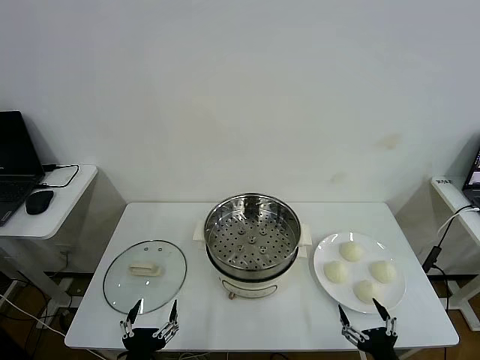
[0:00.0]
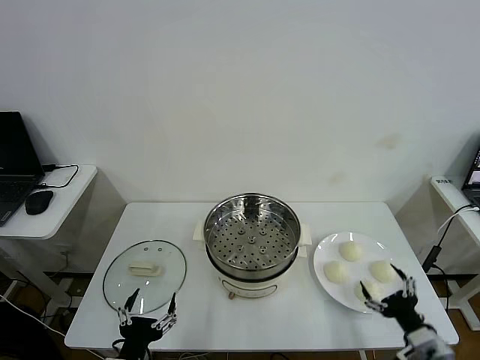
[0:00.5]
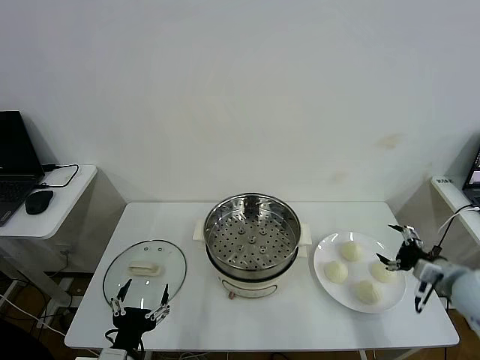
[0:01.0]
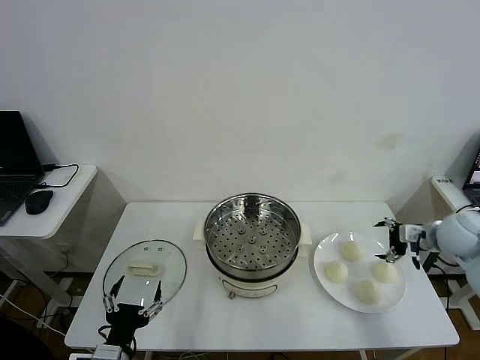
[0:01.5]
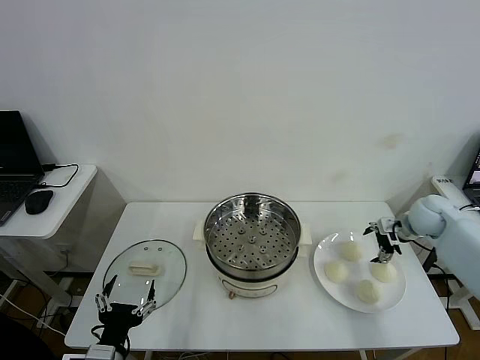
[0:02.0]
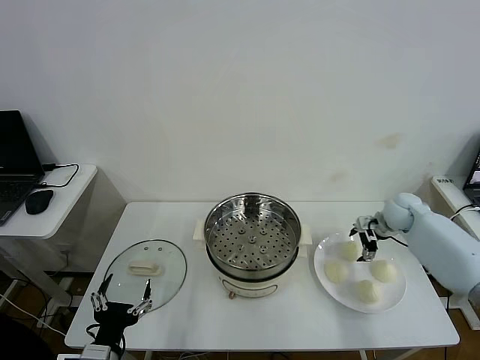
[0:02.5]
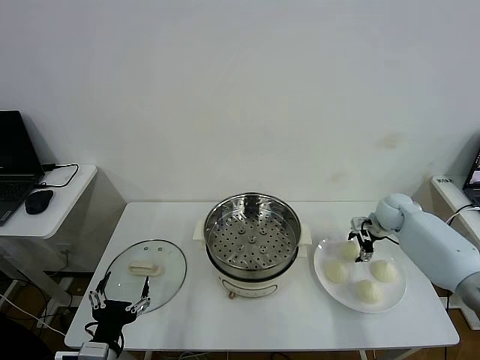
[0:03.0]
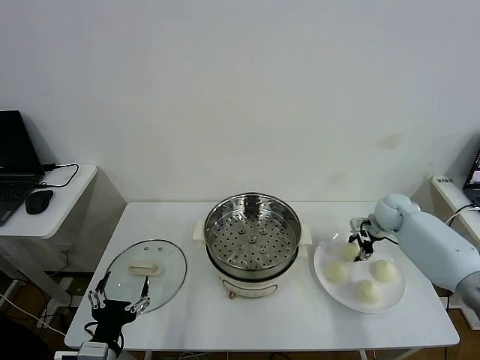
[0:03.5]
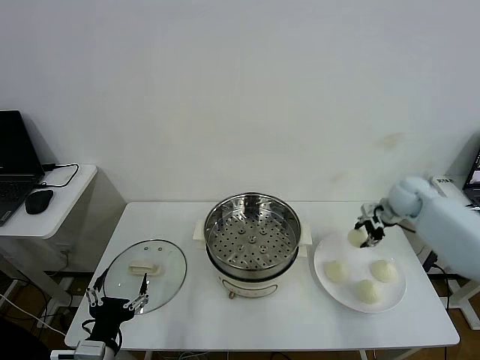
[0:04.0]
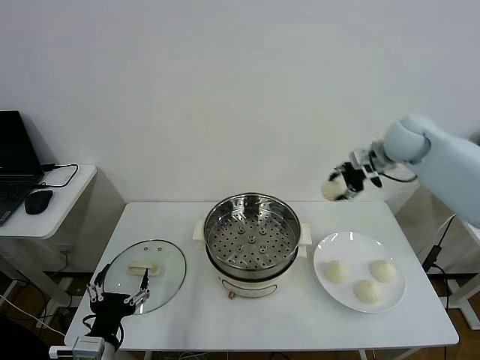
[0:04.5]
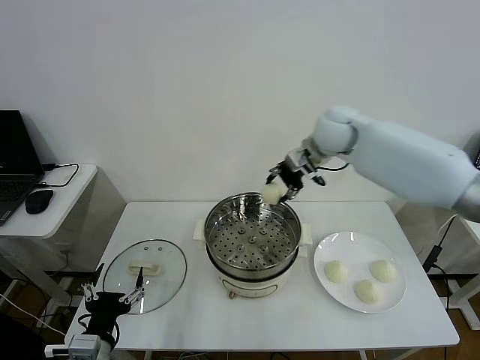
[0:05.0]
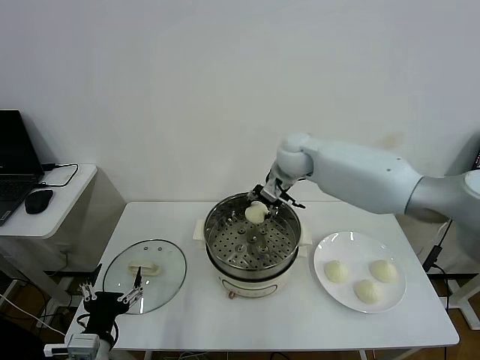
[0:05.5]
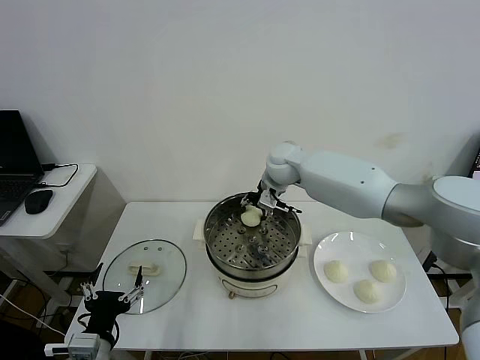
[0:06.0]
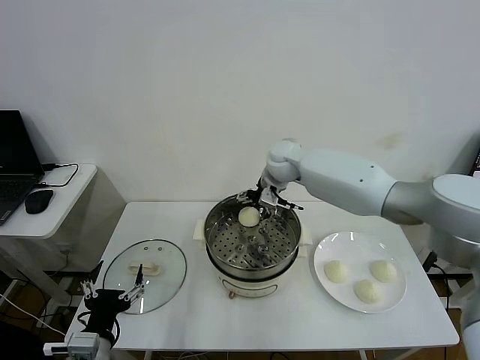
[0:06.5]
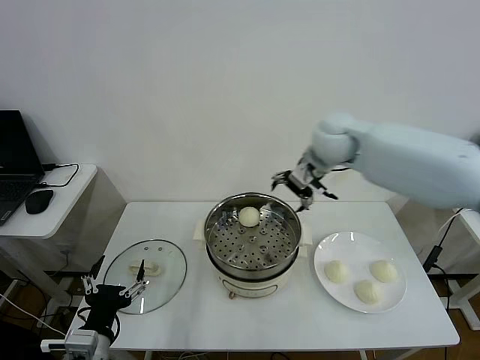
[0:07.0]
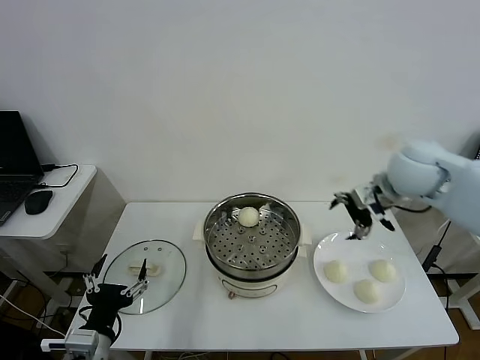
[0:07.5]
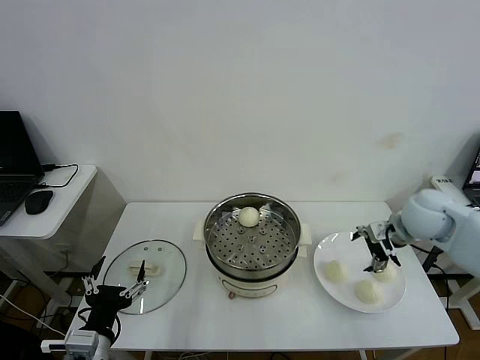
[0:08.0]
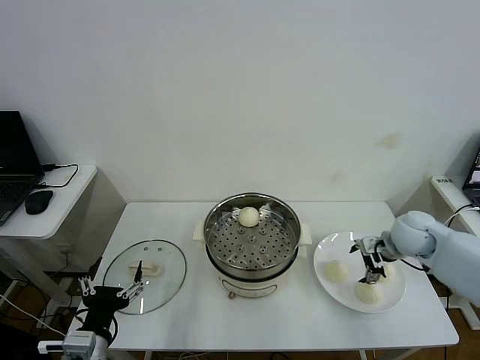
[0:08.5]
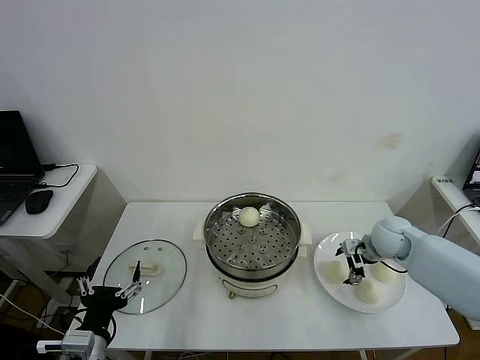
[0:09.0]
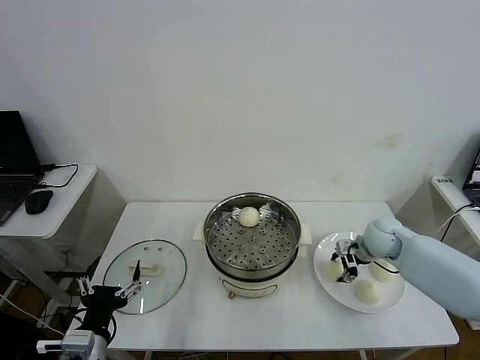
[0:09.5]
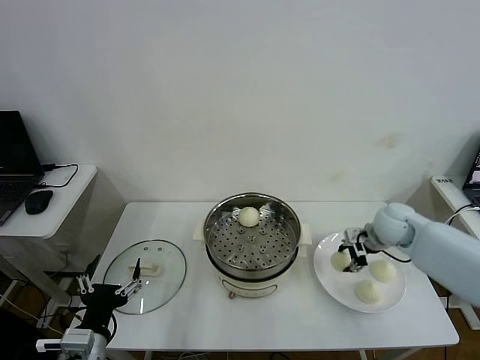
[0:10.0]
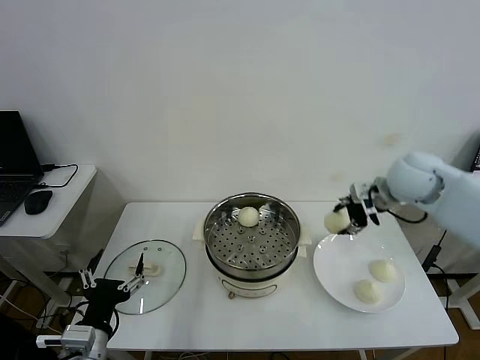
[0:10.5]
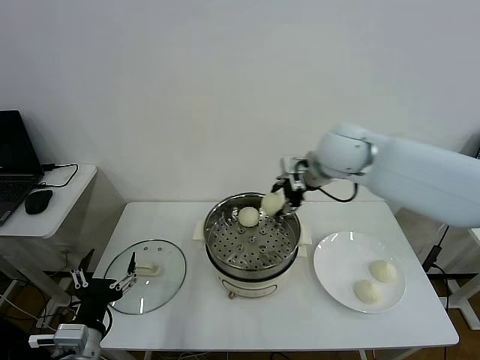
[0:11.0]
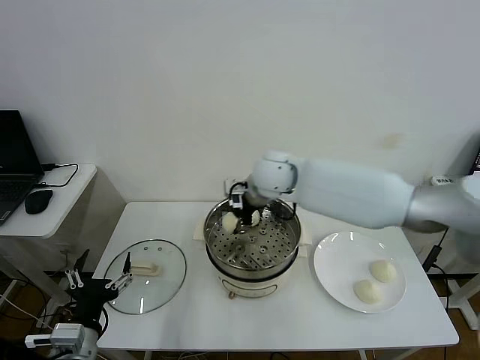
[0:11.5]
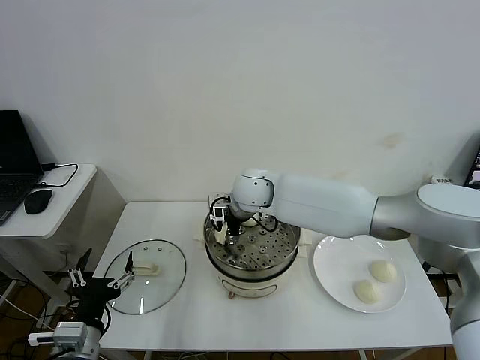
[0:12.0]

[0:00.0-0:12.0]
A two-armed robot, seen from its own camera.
Step, 0.0 to 3.0 s: Grasp the baozi in the plate with right gripper.
Step, 3.5 to 6.5 s: Place the baozi on the steamer with right gripper.
Step, 7.0 to 9.5 s: Grasp the baozi in the plate with right gripper.
2.0 to 4.0 s: The right gripper shifts about 5 cm upward, and closes up.
4.0 to 6.0 s: The right gripper heads to the left, covering about 30 cm.
6.0 to 8.0 s: The right gripper travels to the right and backward by some 30 cm, and opens.
8.0 to 10.0 s: The right gripper closes up.
10.0 to 12.0 s: The right gripper is displaced to the left by roughly 35 cm, and opens up.

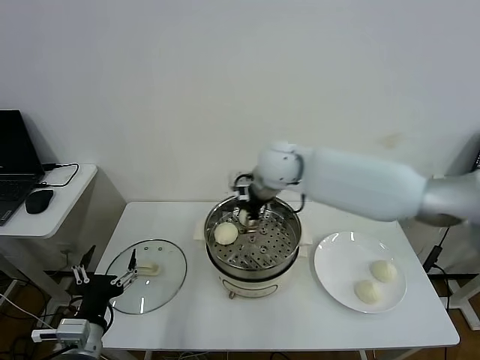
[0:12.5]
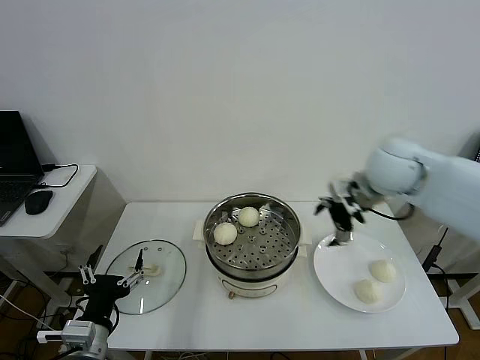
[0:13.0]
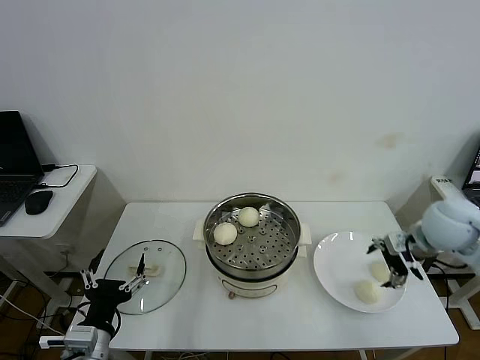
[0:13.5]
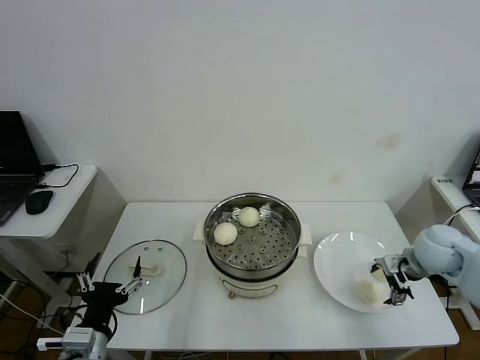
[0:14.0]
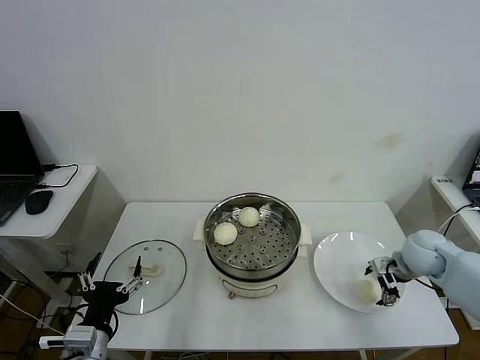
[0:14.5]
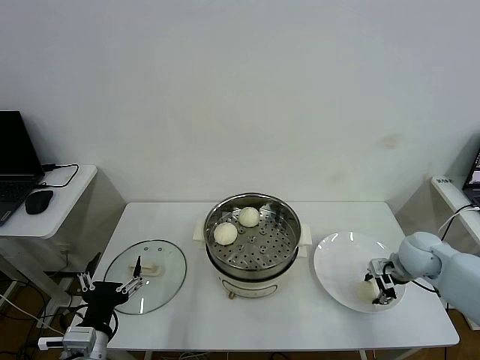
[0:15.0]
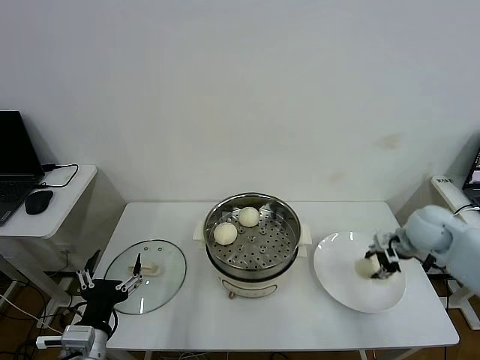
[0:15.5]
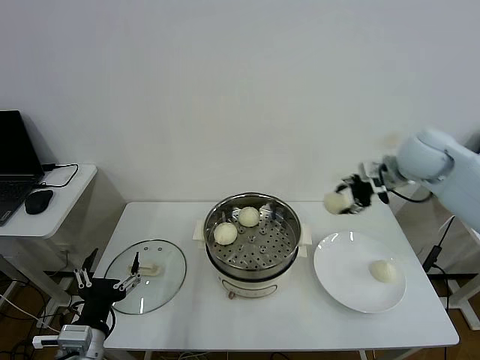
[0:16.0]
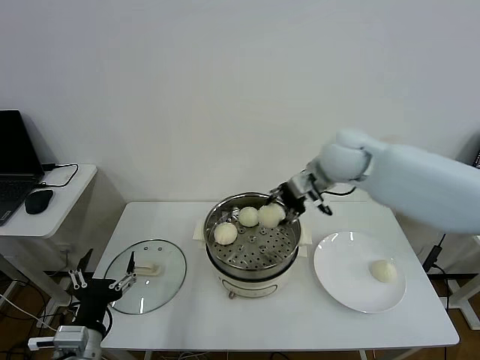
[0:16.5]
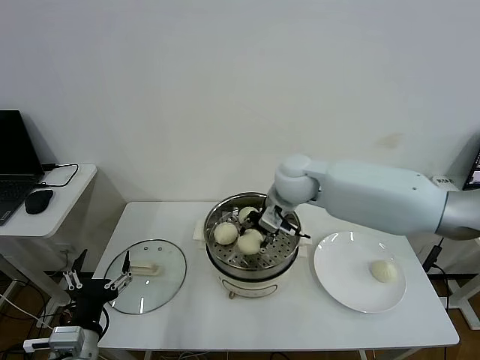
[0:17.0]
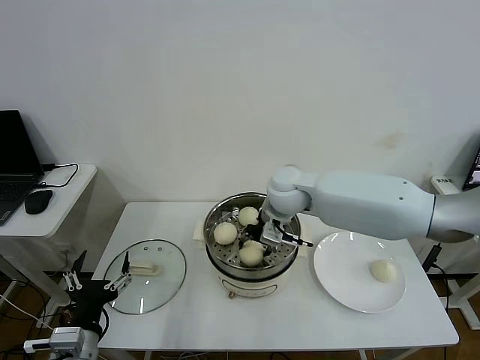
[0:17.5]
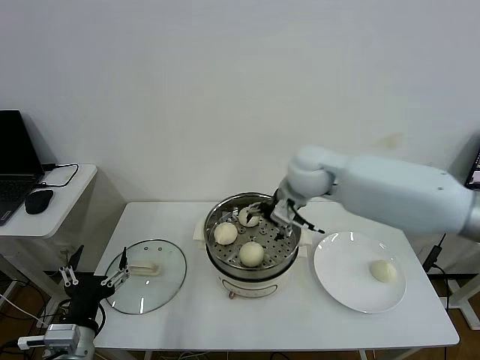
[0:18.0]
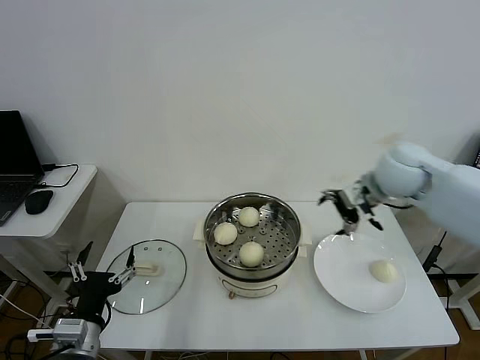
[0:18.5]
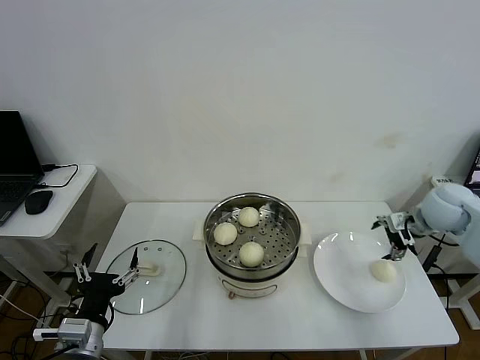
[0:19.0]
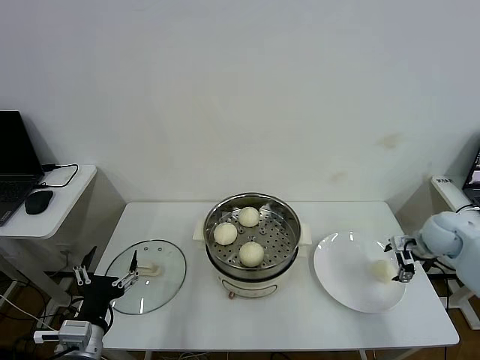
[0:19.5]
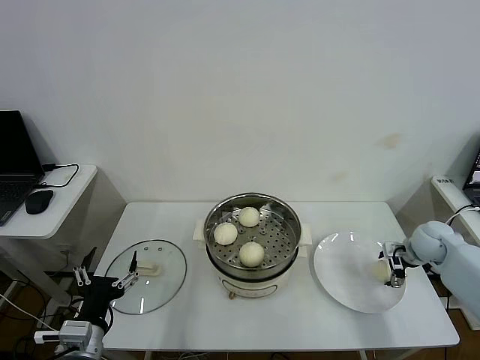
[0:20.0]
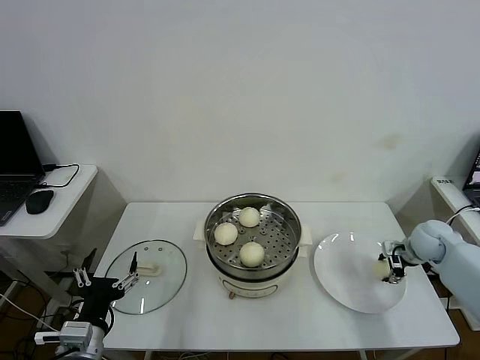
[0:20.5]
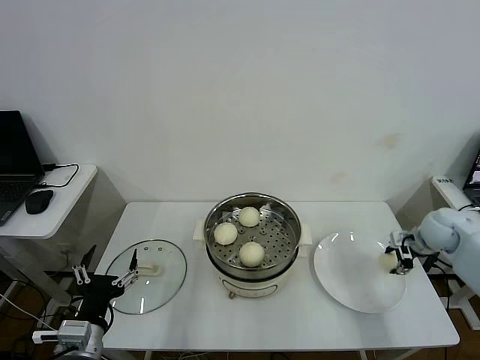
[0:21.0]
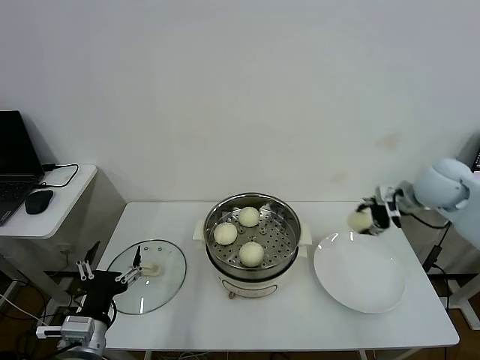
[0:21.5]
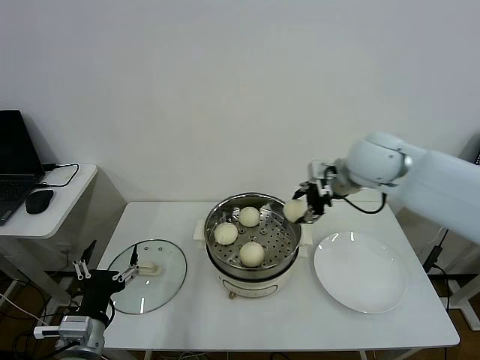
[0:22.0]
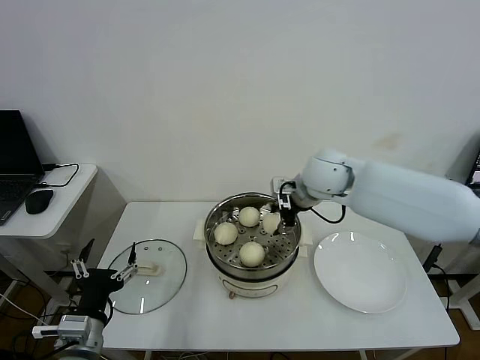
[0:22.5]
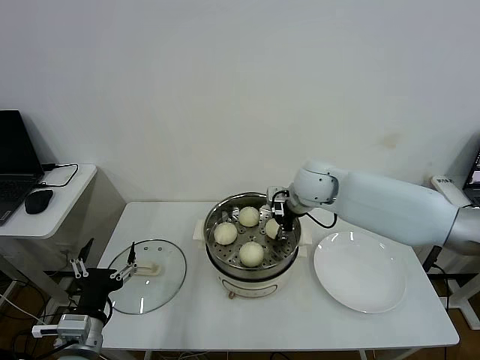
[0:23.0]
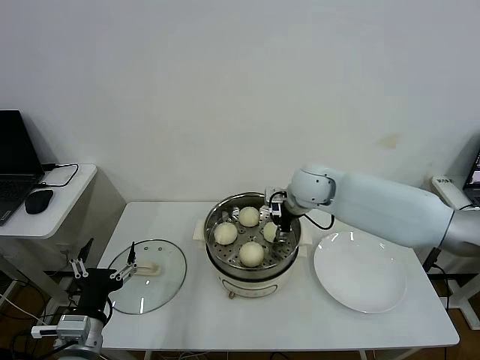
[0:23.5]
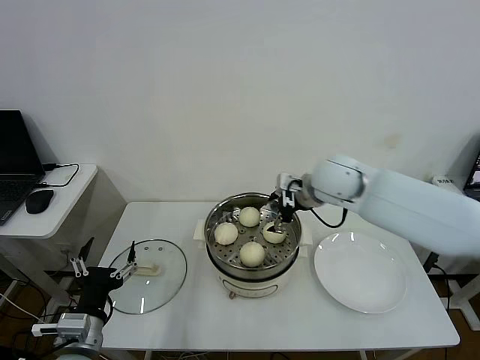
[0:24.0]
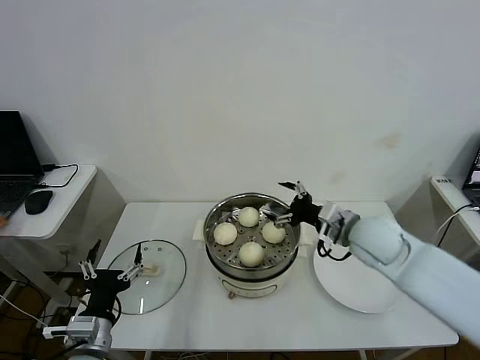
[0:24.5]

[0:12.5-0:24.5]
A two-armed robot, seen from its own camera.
Step, 12.5 to 14.5 s: Grasp the baozi in the plate with right gripper.
Step, 15.0 to 17.5 s: Place the baozi on the steamer with right gripper.
Step, 18.0 to 20.5 s: Grasp the baozi in the plate with right gripper.
Step, 21.0 to 23.5 s: Place the baozi on the steamer with right gripper.
12.5 to 14.5 s: The right gripper shifts approximately 35 cm to the right and downward.
14.5 to 16.5 s: The right gripper heads to the left, upward and forward, covering some 30 cm, and closes.
16.5 to 18.5 s: The right gripper is displaced to the right by about 15 cm, and opens up.
18.5 to 20.5 s: The right gripper moves downward and to the right, some 25 cm, and closes.
20.5 to 22.5 s: The right gripper is displaced to the left and upward by about 35 cm.
22.5 to 24.5 s: The right gripper heads backward, to the right and downward, covering roughly 15 cm, and opens its fingers.

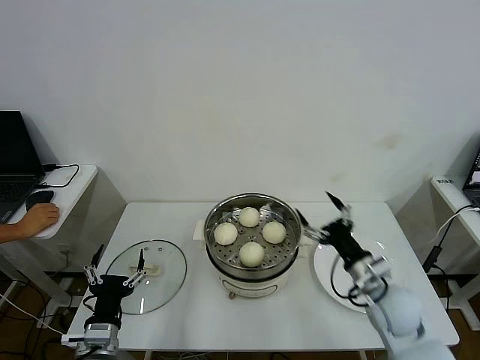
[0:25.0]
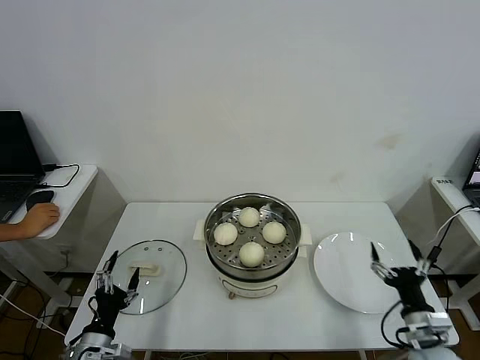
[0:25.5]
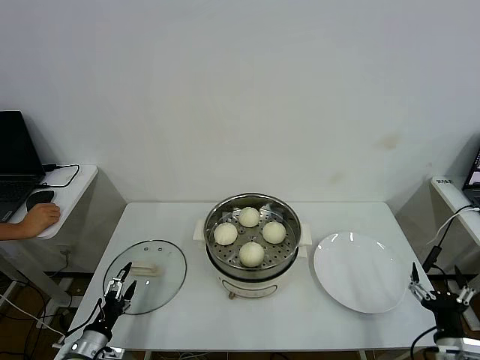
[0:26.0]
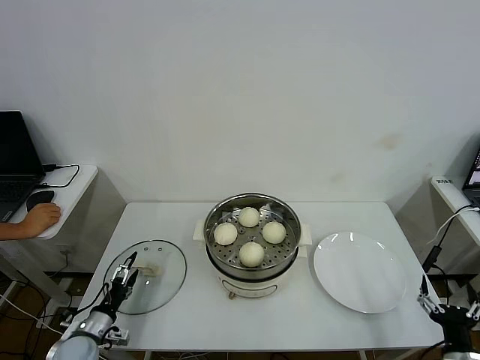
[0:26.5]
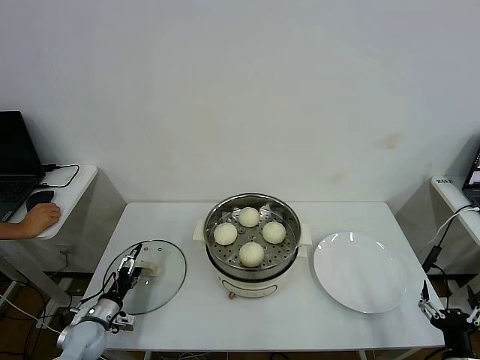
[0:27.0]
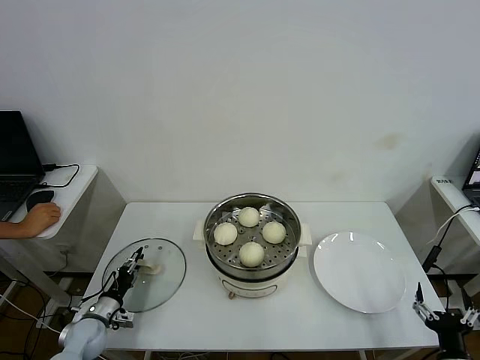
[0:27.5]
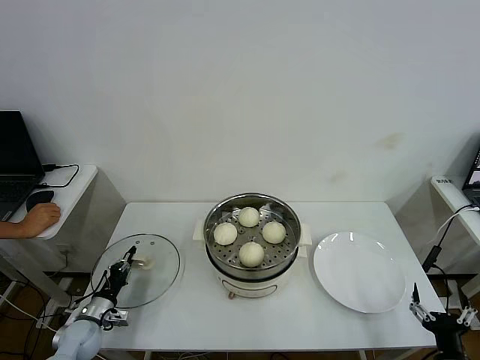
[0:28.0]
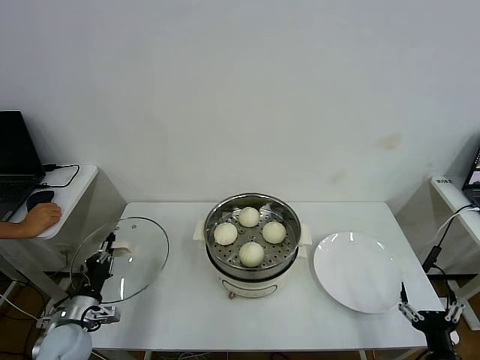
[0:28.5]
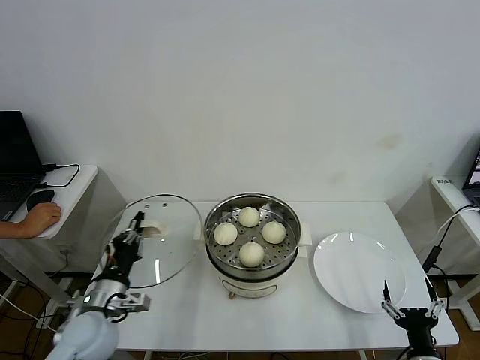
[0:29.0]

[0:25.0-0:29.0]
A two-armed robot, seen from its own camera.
Step, 25.0 to 27.5 s: Grasp the pot lid with left gripper.
25.0 to 27.0 s: The left gripper goes about 20 cm downward, to the left and forward; the right gripper moves backward, to the right and downward, roughly 25 cm.
27.0 to 29.0 s: The right gripper shifts by about 5 cm, while the left gripper travels upward and to the right by about 20 cm, and closes up.
